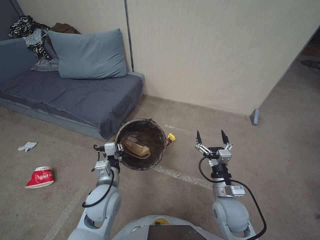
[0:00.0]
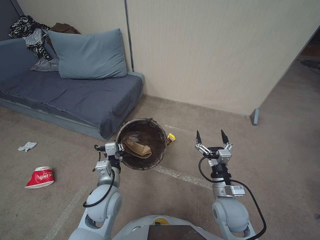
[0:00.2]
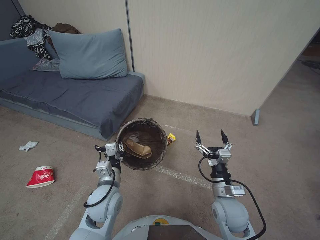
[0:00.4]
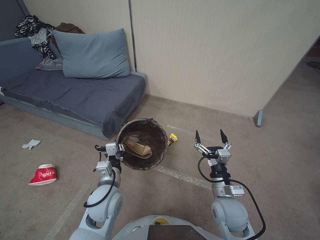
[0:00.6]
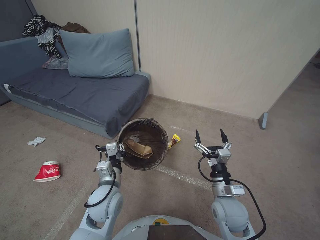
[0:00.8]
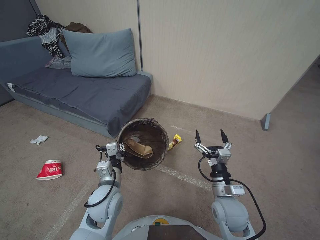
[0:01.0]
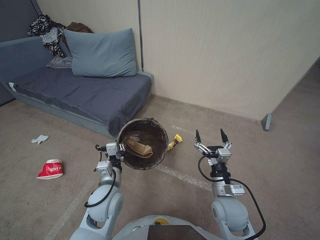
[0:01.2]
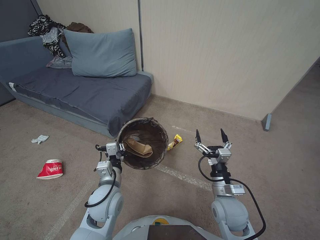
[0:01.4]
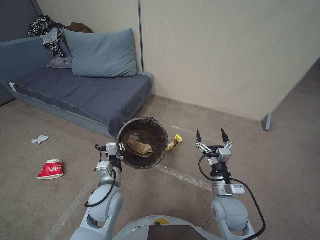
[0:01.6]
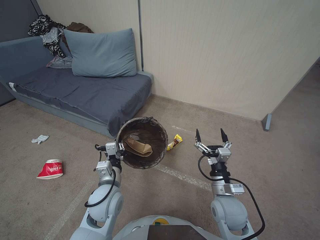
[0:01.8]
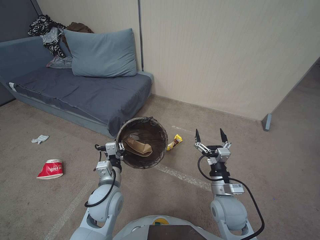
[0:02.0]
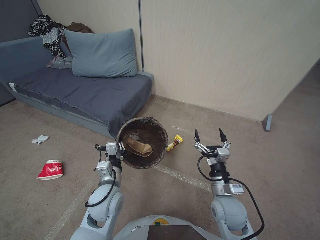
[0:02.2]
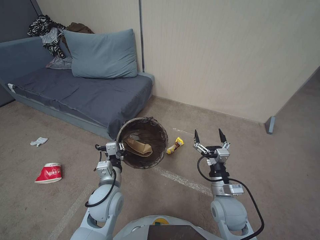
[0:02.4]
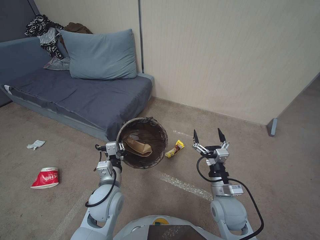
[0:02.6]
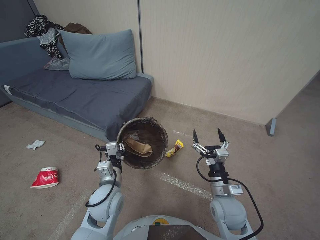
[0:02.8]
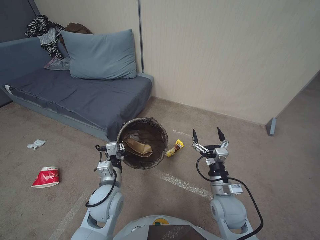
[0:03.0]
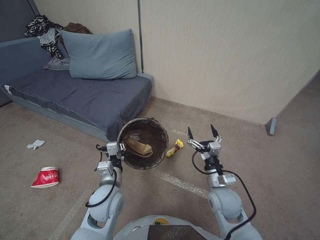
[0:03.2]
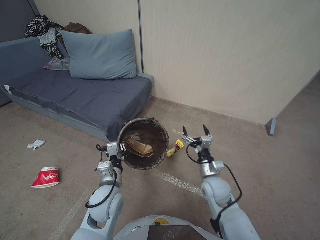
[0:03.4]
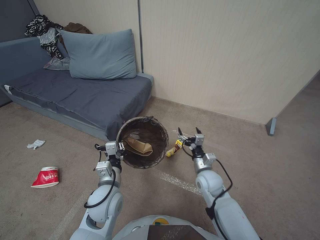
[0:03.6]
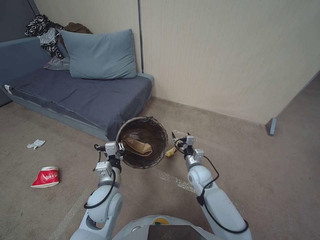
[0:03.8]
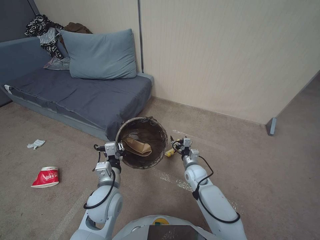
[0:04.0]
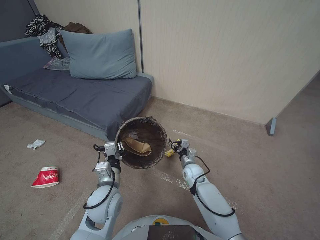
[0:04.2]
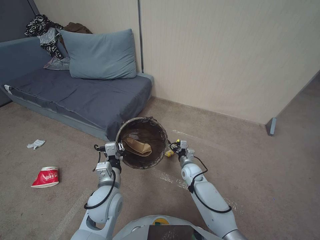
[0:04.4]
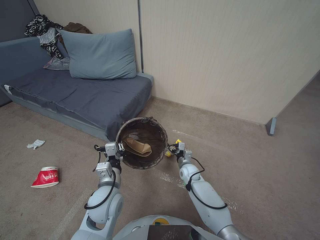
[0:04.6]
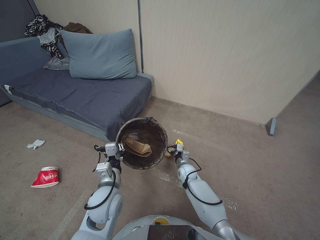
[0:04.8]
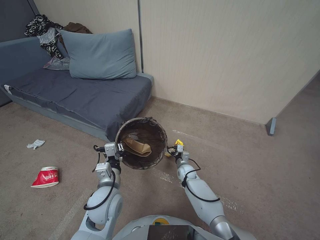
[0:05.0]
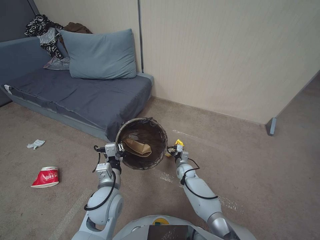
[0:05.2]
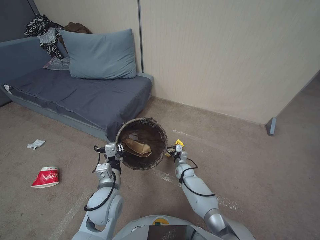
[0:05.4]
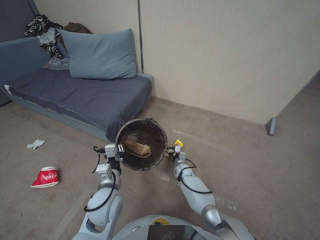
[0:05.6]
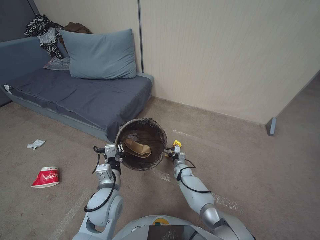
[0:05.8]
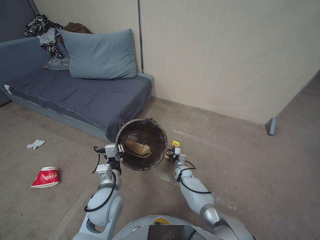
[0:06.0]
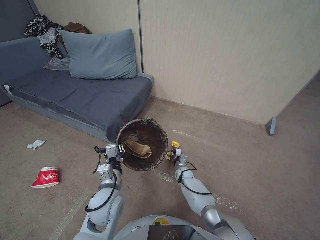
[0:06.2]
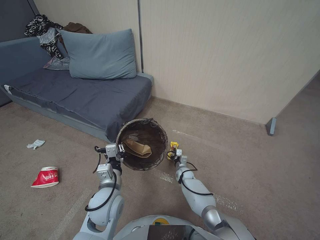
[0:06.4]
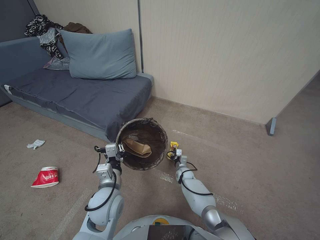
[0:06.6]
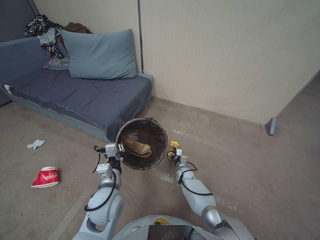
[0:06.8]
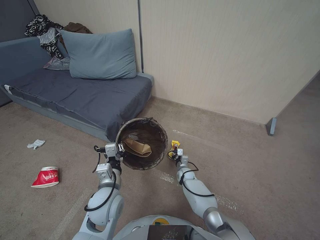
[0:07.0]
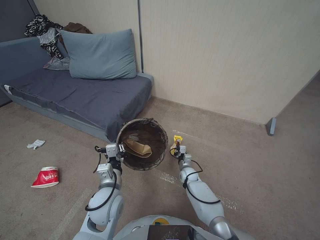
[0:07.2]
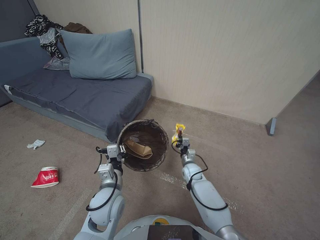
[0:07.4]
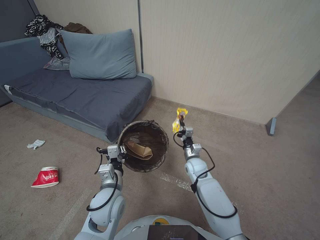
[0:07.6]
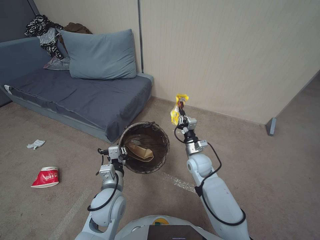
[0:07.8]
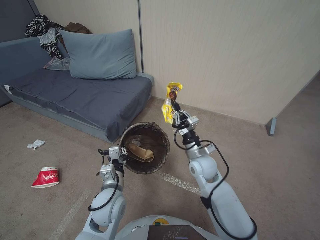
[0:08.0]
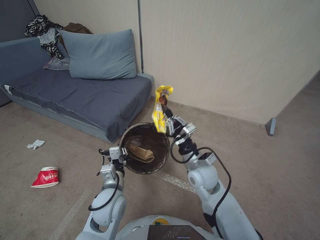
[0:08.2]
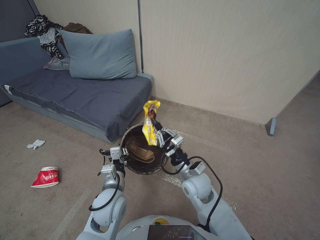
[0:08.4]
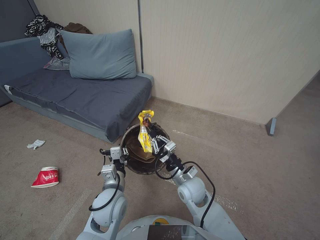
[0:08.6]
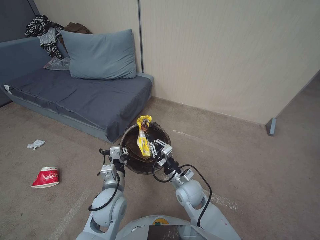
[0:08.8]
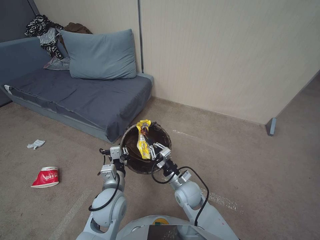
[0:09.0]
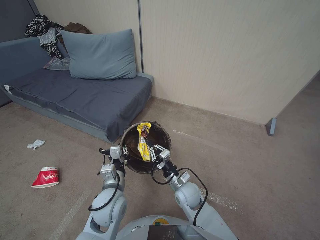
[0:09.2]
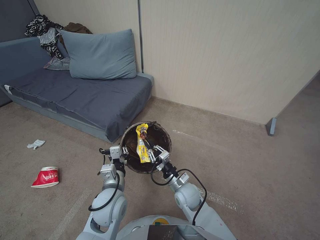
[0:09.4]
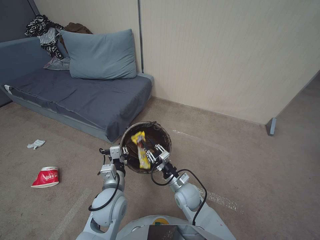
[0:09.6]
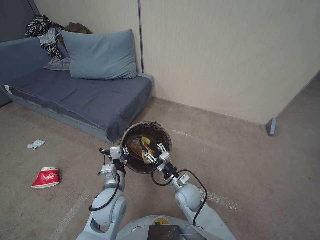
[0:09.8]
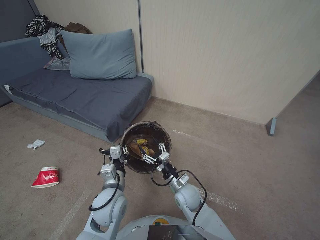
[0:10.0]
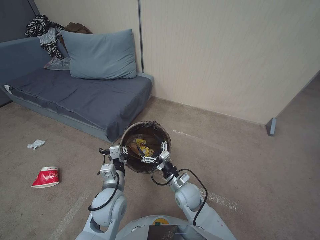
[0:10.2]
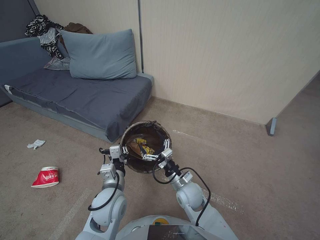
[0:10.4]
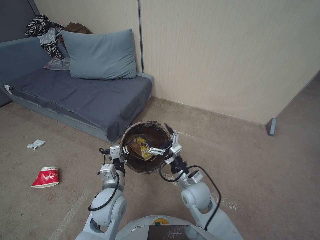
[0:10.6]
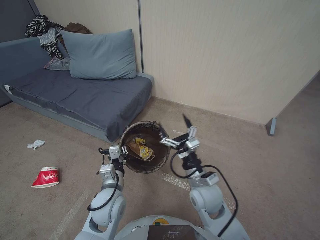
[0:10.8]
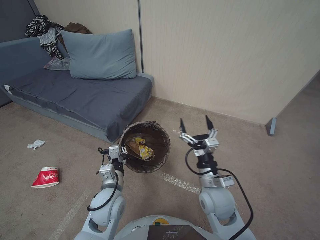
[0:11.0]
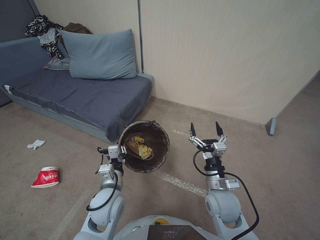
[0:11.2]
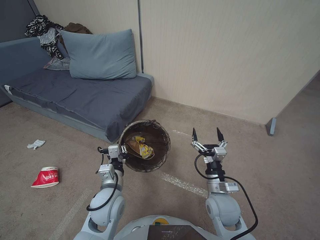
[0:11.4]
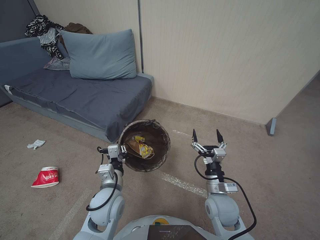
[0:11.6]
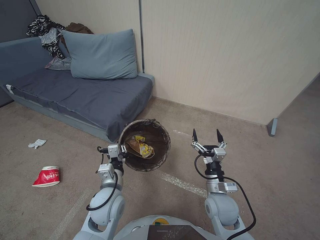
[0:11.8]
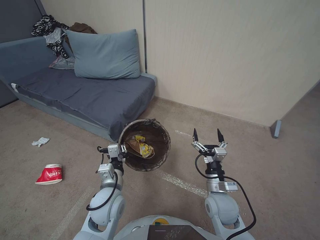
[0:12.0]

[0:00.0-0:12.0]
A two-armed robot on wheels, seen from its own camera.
Task of the whole recording: Pick up the trash bin, then pick up the garbage from the floor and place it into the trash bin.
0:00.0 to 0:03.0: The two grippers keep their place.
0:03.0 to 0:04.4: The right gripper heads forward and downward, covering some 20 cm.
0:04.4 to 0:06.0: The right gripper is displaced downward by approximately 10 cm, and closes up.
0:06.0 to 0:07.6: The right gripper shifts some 10 cm upward, and closes.
0:07.6 to 0:09.0: The right gripper shifts roughly 15 cm backward, upward and to the left.
0:09.0 to 0:10.4: The right gripper opens.
0:10.4 to 0:12.0: The right gripper moves to the right, about 10 cm.

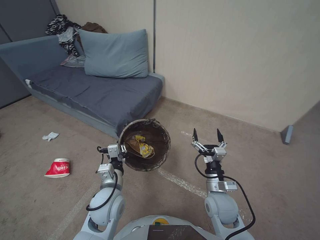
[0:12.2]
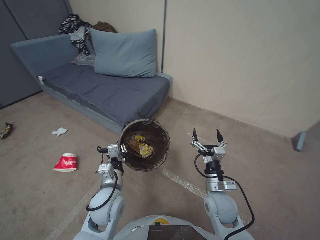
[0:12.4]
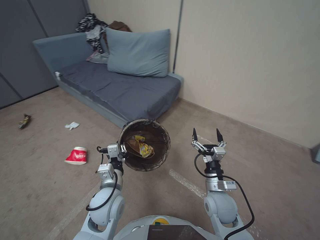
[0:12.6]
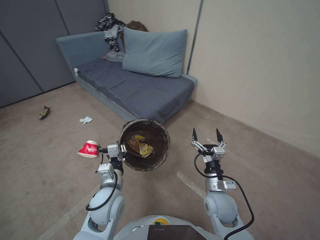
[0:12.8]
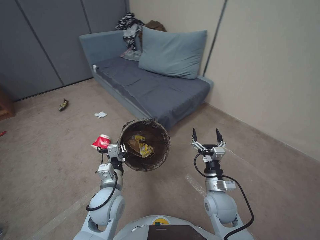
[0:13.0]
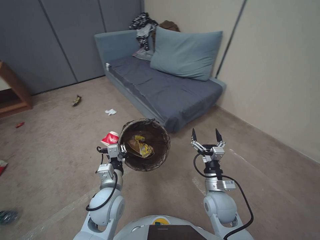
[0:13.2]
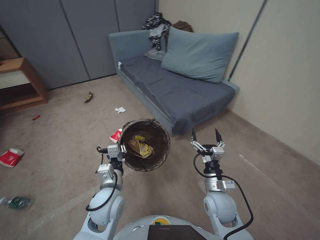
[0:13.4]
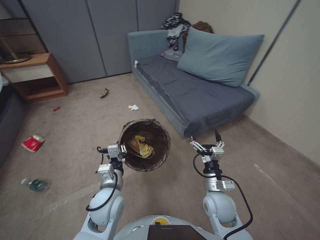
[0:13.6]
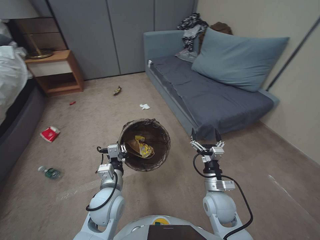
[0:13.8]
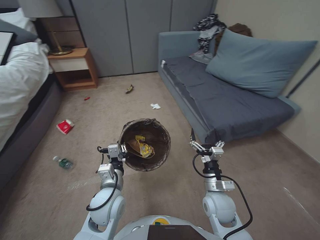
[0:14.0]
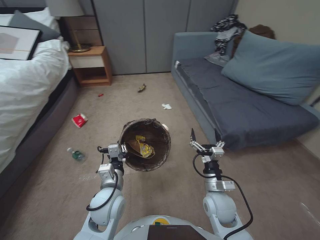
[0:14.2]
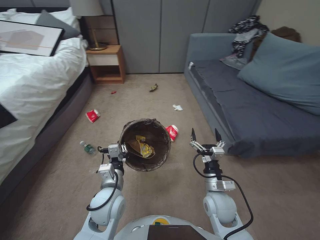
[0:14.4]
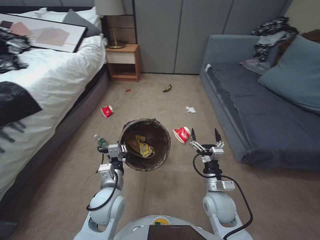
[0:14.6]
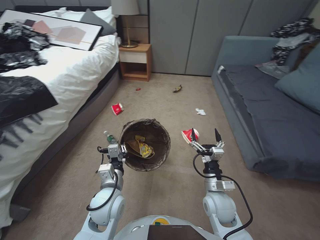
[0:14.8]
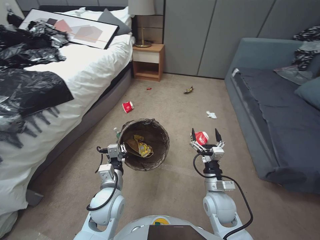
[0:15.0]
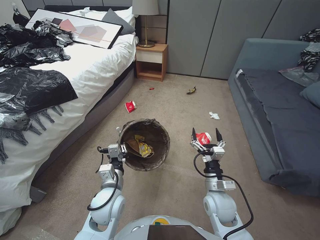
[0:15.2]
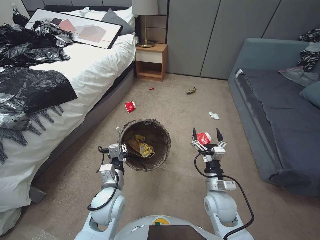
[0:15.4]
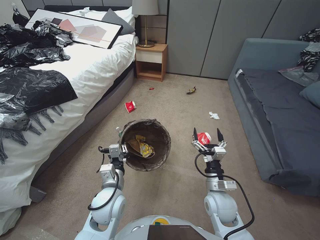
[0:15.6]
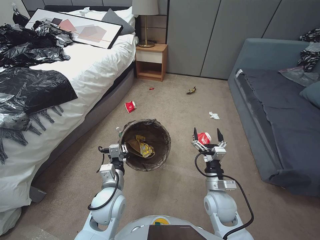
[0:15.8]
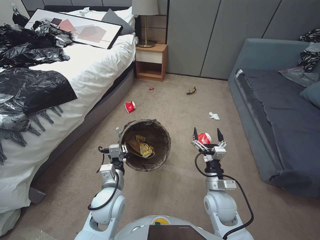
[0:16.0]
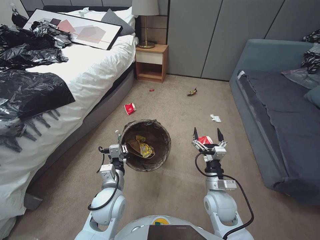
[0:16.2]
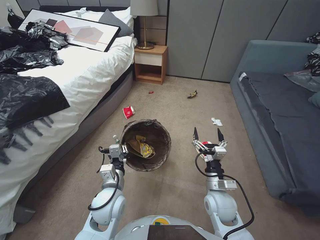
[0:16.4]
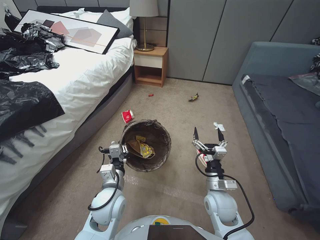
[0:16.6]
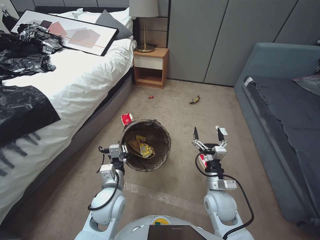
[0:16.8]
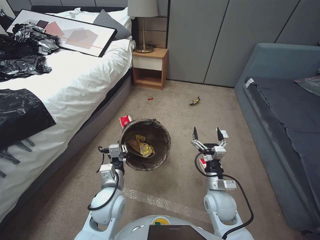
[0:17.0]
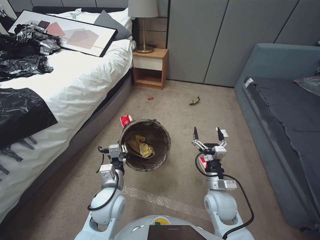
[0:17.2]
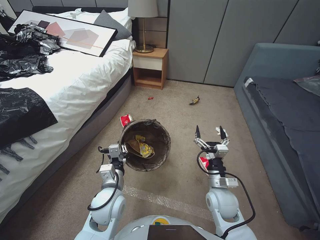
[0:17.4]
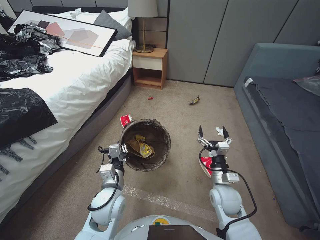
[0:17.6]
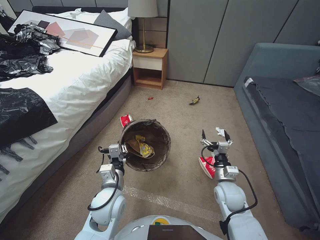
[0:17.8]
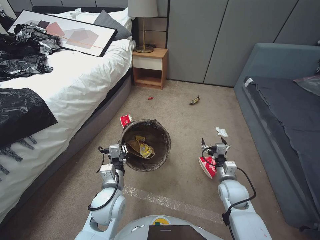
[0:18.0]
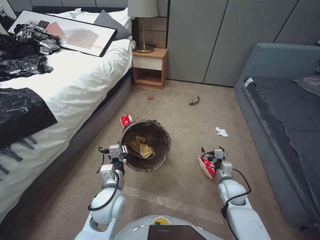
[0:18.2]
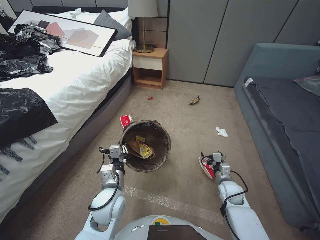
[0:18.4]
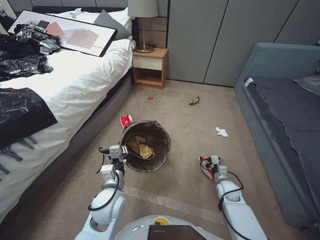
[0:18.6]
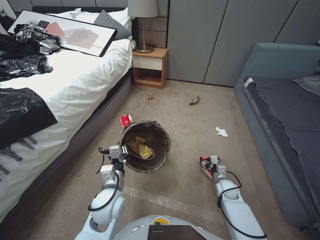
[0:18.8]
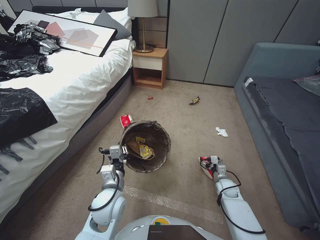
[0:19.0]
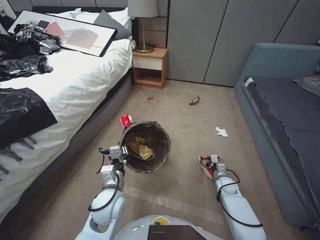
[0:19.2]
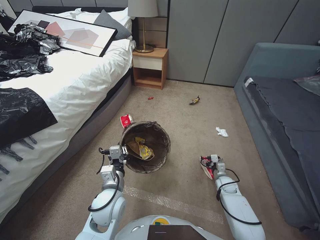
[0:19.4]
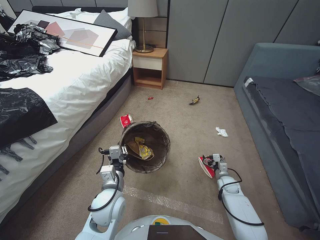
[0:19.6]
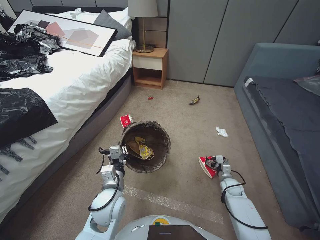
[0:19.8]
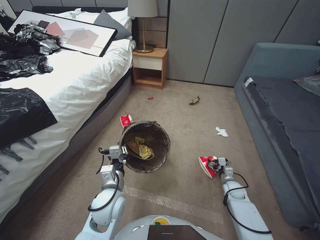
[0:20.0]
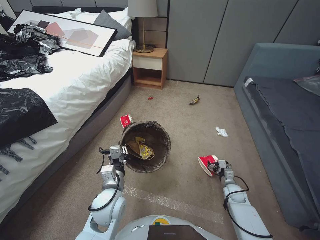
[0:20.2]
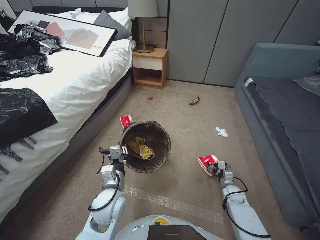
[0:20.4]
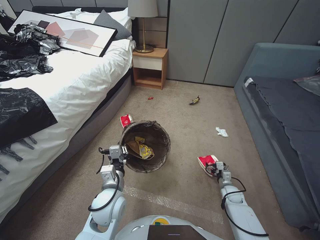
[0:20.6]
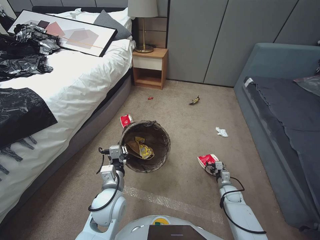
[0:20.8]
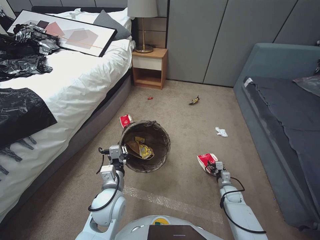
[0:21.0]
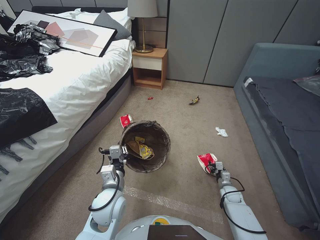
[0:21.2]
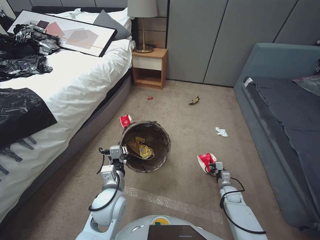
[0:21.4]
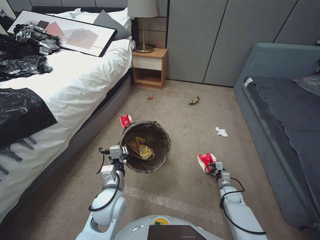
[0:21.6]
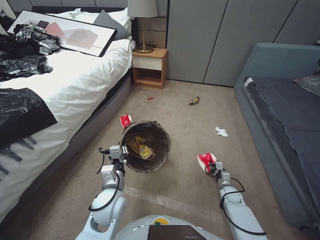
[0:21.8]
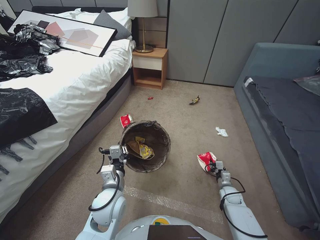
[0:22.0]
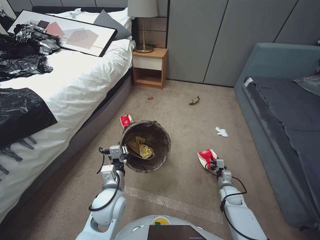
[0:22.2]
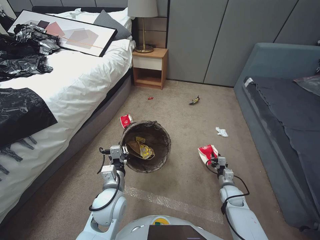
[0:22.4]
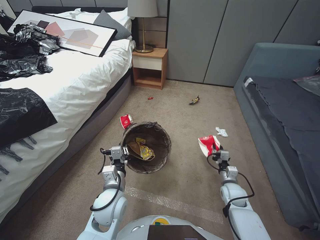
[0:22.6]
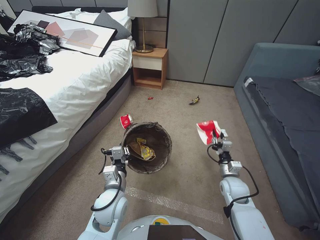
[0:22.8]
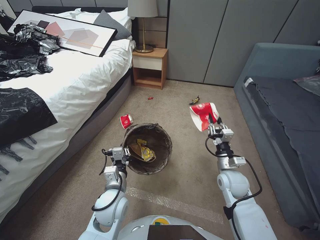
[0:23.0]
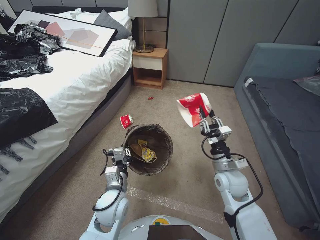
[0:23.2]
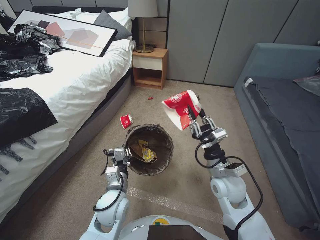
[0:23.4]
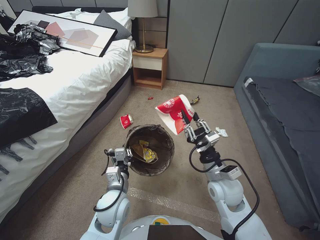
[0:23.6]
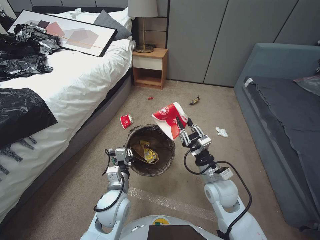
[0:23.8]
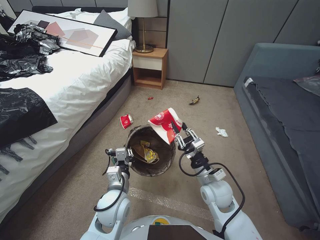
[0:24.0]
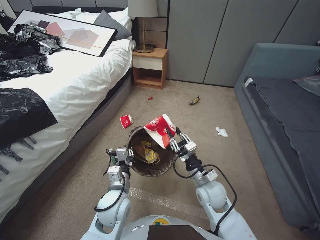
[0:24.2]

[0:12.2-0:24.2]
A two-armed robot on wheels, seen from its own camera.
Task of the whole recording: Pick up the trash bin, then pick up the garbage from the floor and place it into the trash bin.
0:16.6 to 0:18.2: The right gripper shifts roughly 10 cm to the right and forward.
0:18.2 to 0:19.8: The right gripper is displaced downward by some 10 cm.
0:19.8 to 0:21.2: The right gripper ends up about 5 cm from where it was, and closes its fingers.
0:21.2 to 0:22.6: The right gripper moves upward, approximately 5 cm.
0:22.6 to 0:24.2: The right gripper shifts some 25 cm upward and to the left.
